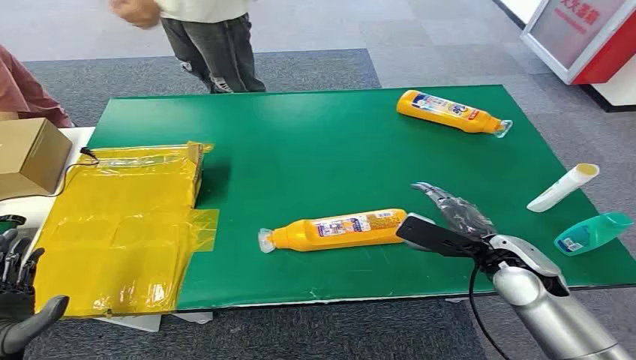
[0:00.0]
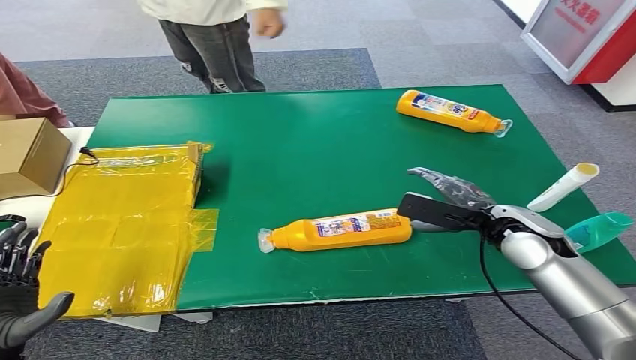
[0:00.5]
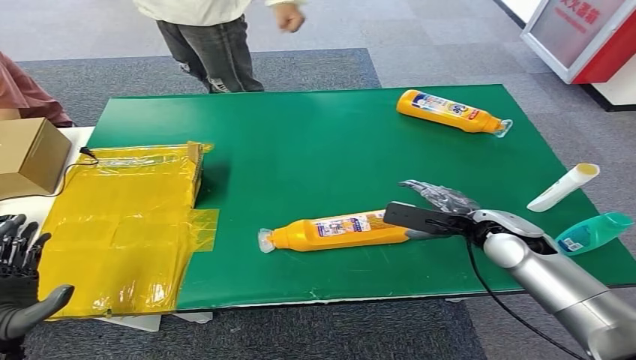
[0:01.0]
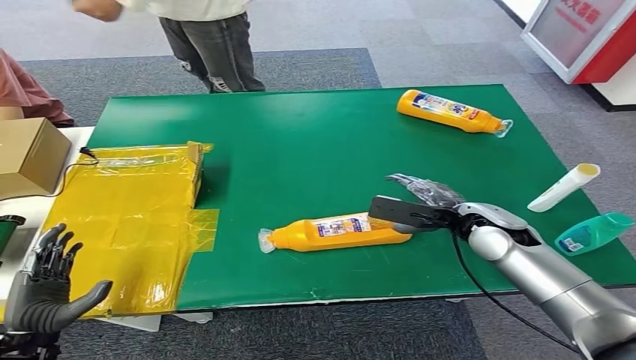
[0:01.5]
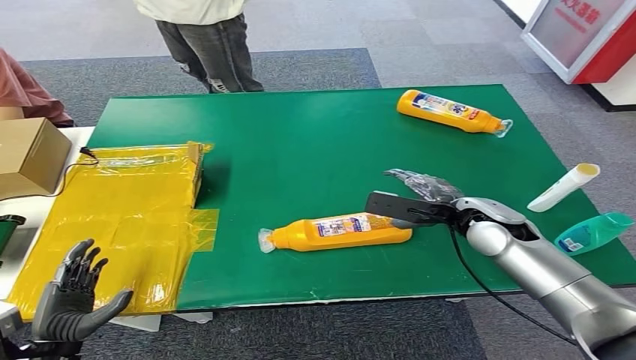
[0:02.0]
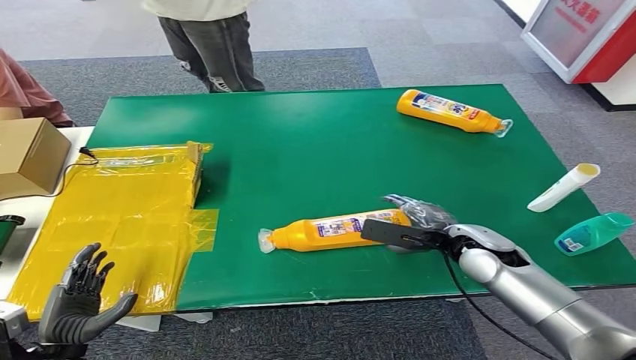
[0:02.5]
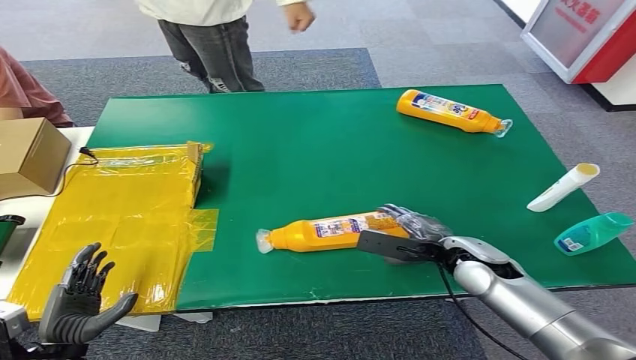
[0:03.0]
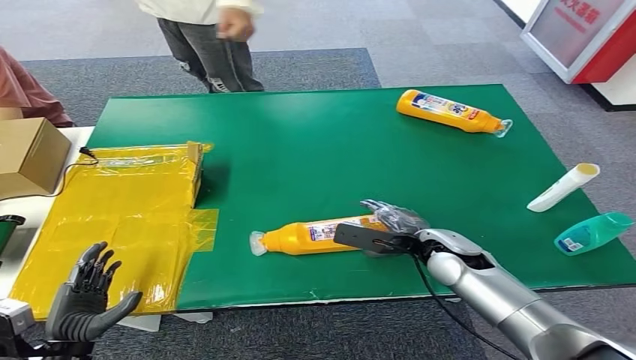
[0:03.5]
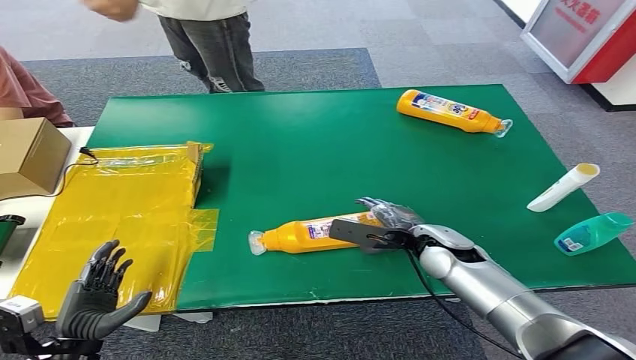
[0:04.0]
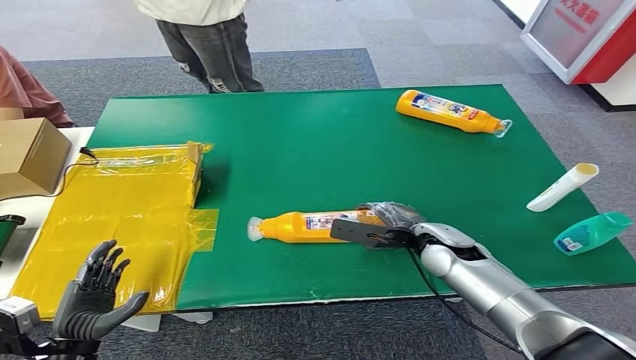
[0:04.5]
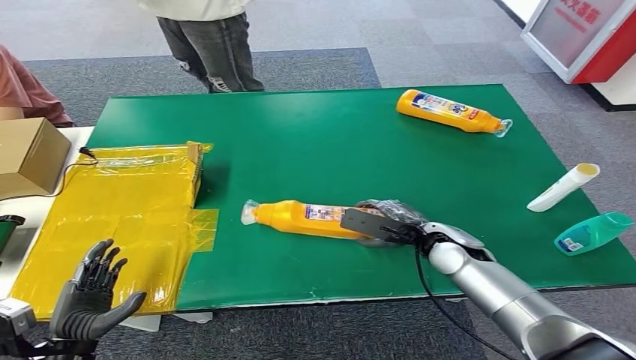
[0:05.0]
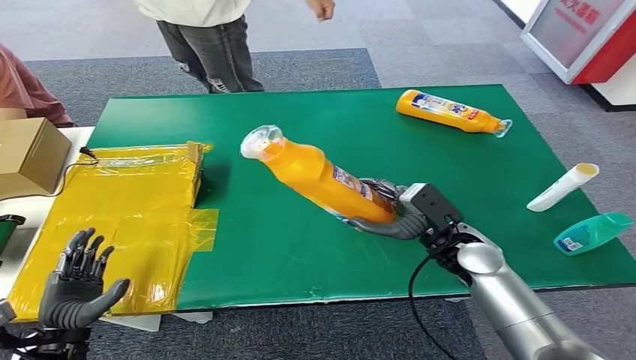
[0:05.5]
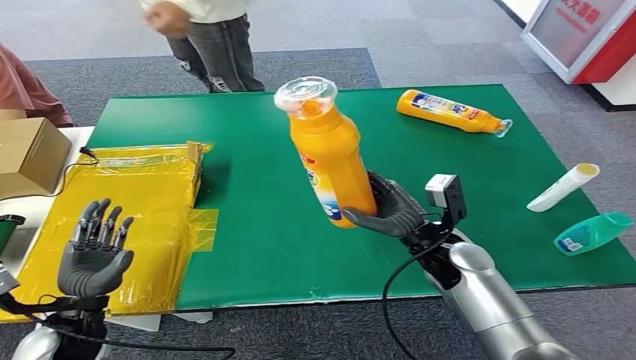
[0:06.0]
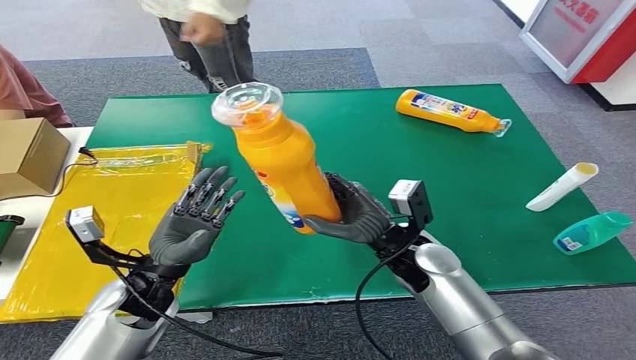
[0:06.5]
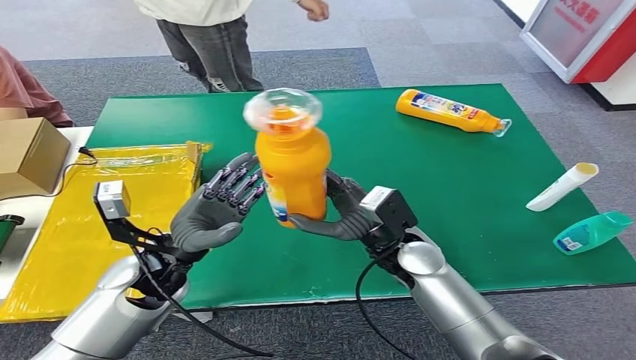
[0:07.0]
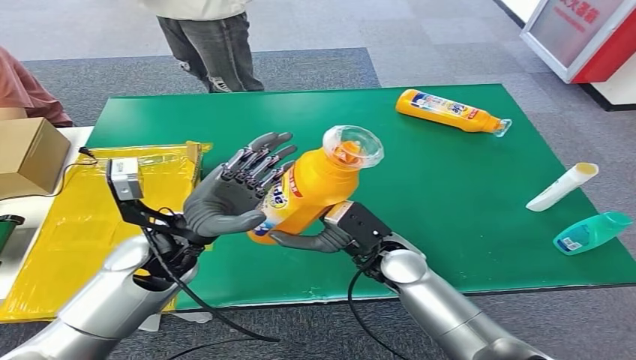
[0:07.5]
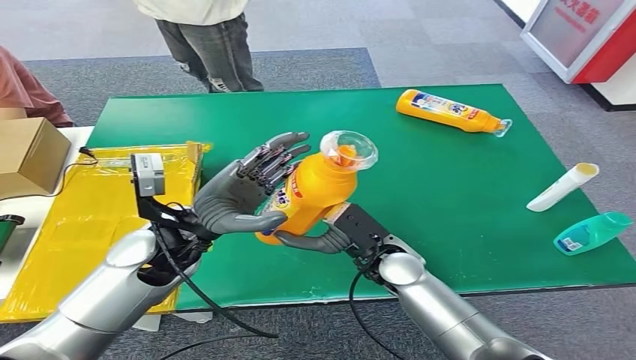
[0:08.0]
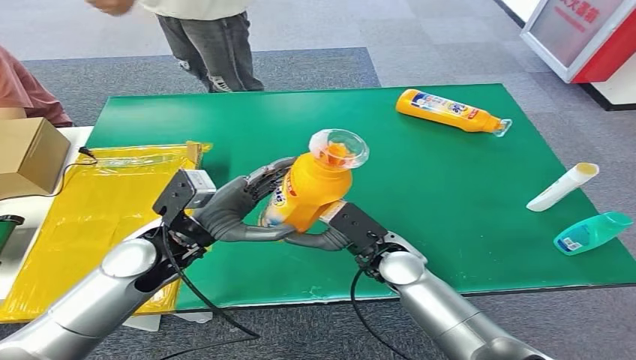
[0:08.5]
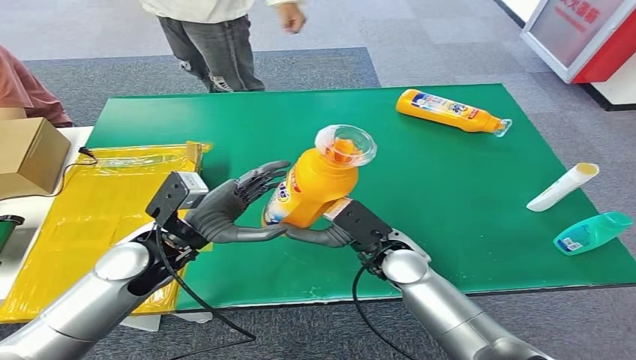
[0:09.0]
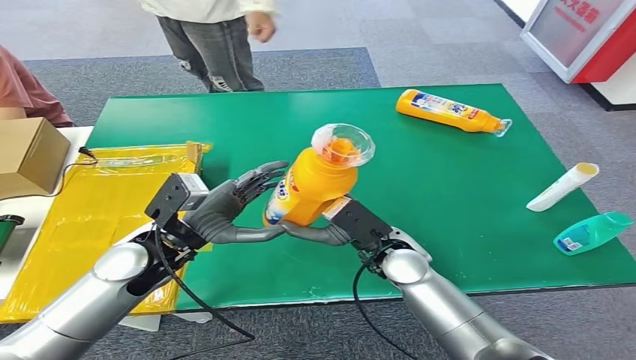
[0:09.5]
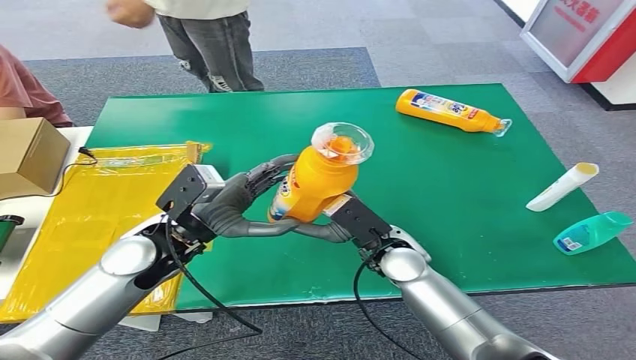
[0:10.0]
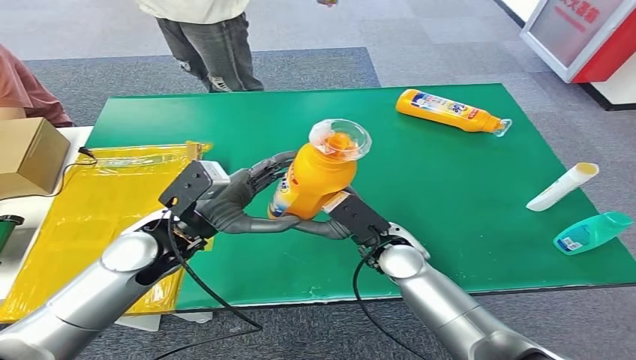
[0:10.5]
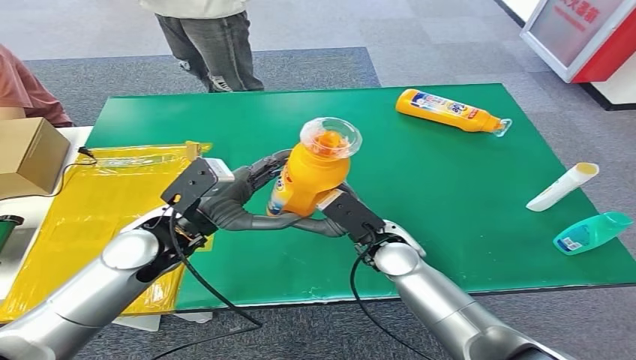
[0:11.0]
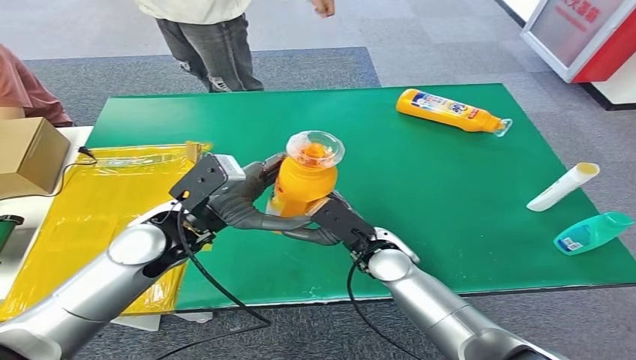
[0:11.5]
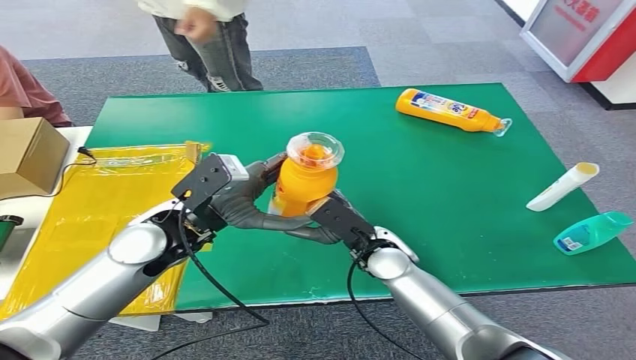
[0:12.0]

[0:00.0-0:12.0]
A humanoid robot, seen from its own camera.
Step, 0:00.0 to 0:06.0: Pick up the bottle from the table.
0:02.0 to 0:04.0: The right hand goes about 10 cm downward and to the left.
0:04.0 to 0:06.0: The left hand heads forward, covering some 5 cm.
0:10.0 to 0:12.0: There are only small adjustments of the hands.

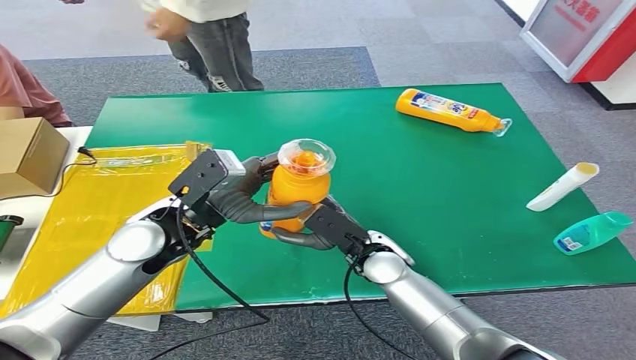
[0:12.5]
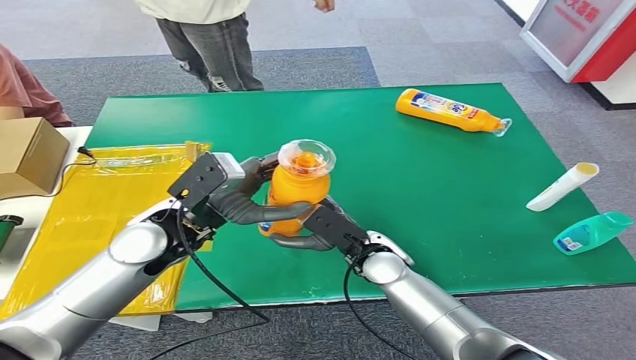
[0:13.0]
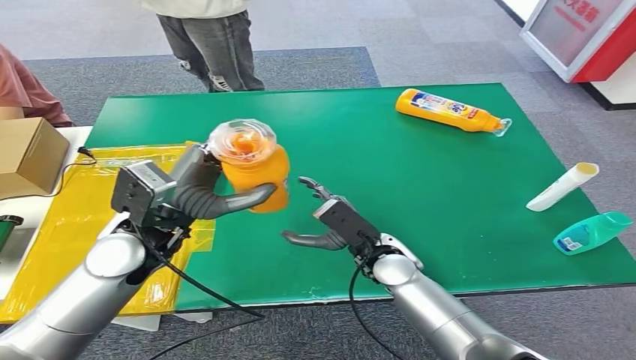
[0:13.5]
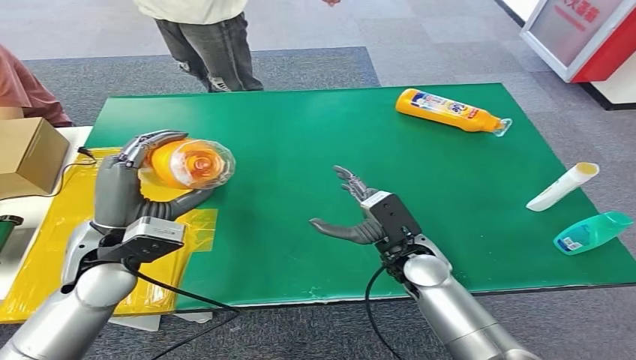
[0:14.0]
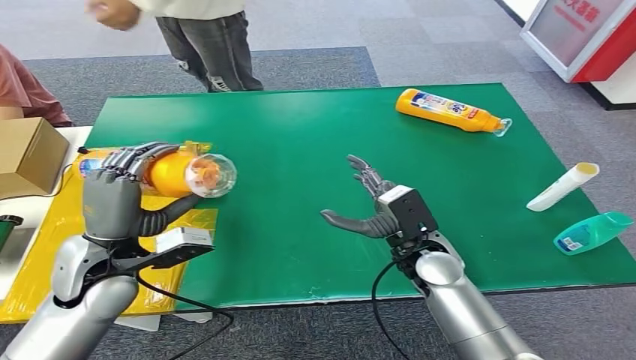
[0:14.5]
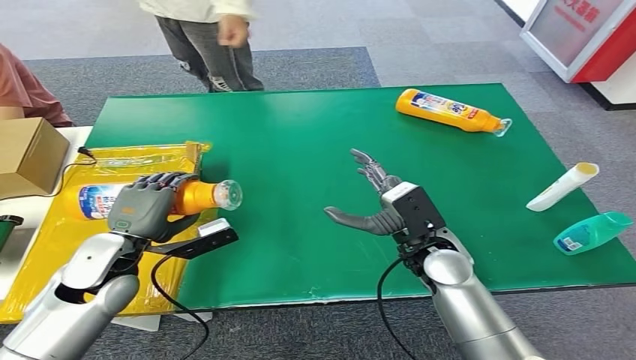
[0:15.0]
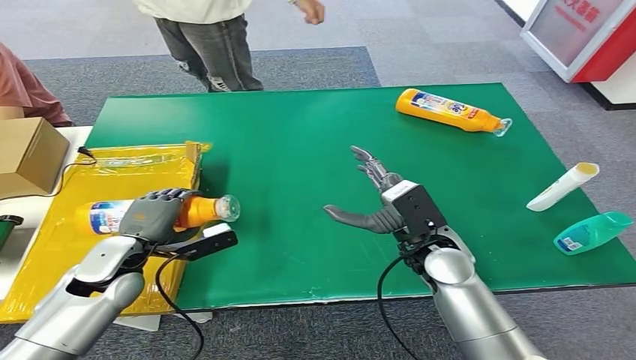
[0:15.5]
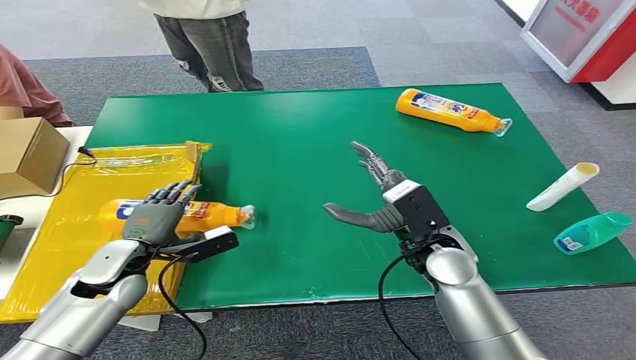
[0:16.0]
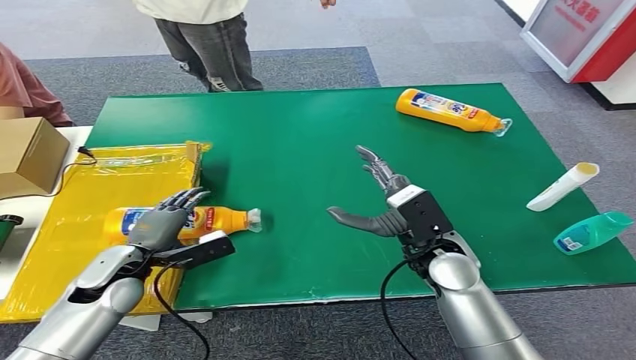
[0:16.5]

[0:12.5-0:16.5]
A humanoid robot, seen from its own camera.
Step, 0:12.5 to 0:16.5: Turn the bottle to the front side.
0:14.5 to 0:16.5: The left hand shifts roughly 10 cm downward.

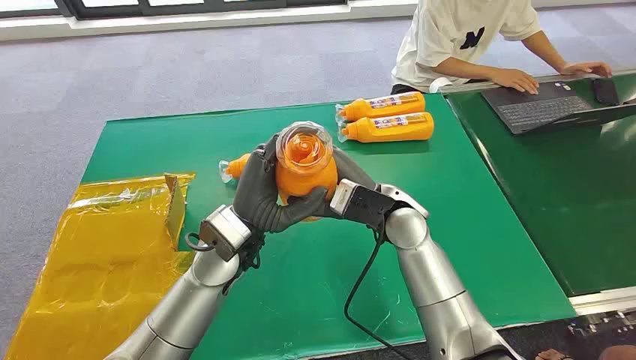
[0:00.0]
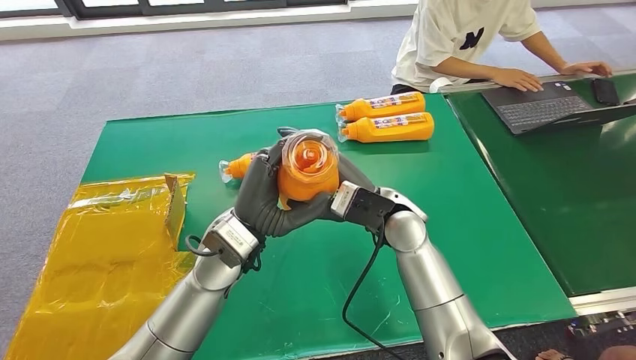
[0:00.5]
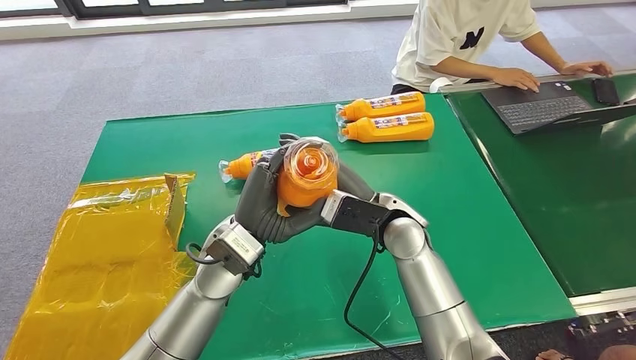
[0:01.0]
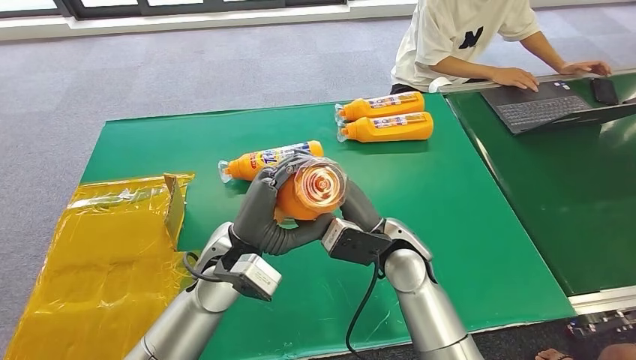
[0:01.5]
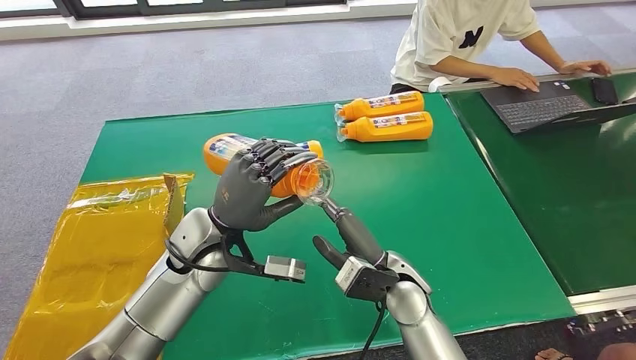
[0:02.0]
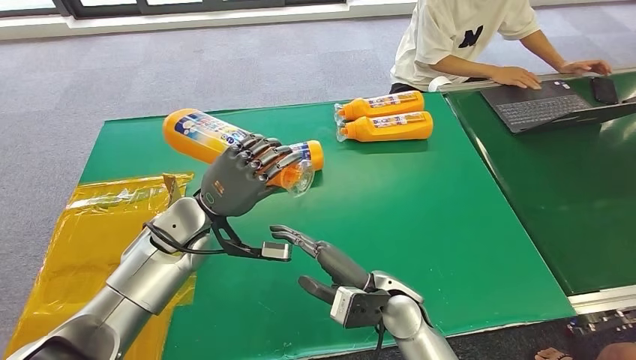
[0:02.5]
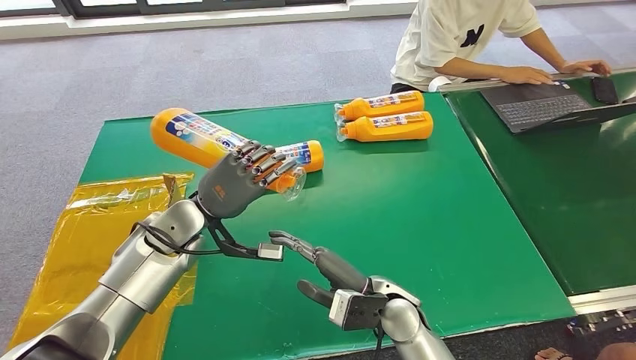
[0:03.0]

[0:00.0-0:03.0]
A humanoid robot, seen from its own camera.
Step, 0:00.0 to 0:01.5: Pick up the bottle from the table.
Step, 0:02.0 to 0:03.0: Turn the bottle to the front side.
